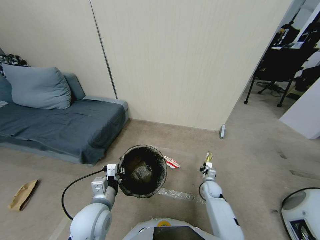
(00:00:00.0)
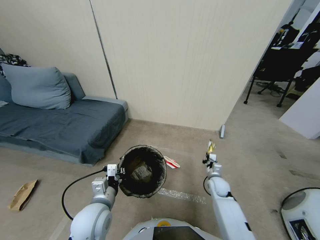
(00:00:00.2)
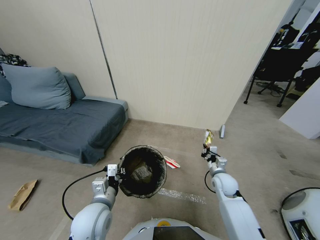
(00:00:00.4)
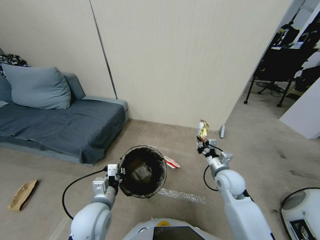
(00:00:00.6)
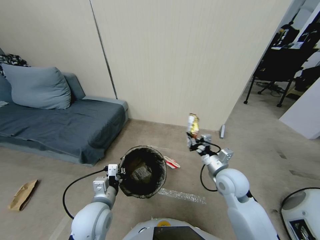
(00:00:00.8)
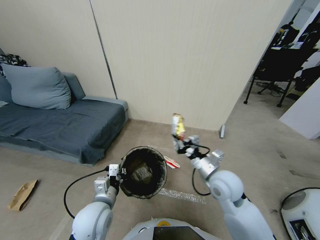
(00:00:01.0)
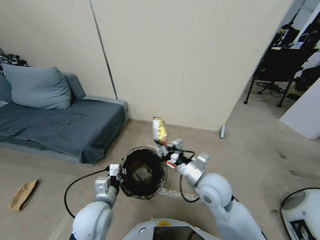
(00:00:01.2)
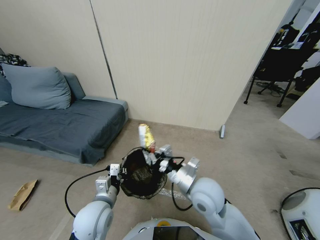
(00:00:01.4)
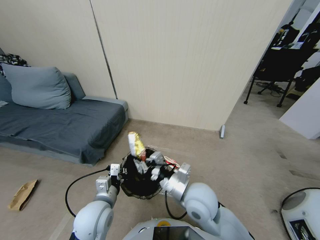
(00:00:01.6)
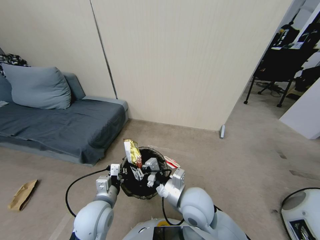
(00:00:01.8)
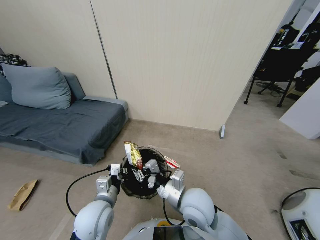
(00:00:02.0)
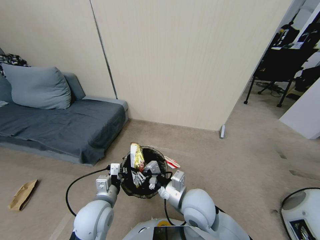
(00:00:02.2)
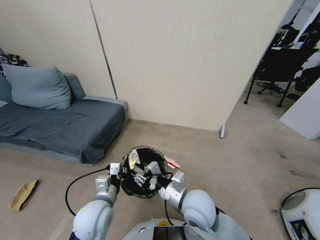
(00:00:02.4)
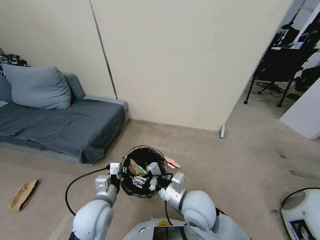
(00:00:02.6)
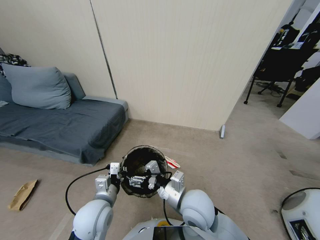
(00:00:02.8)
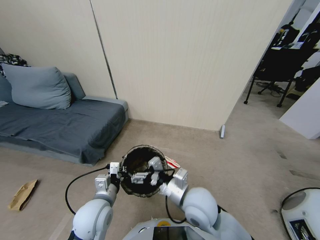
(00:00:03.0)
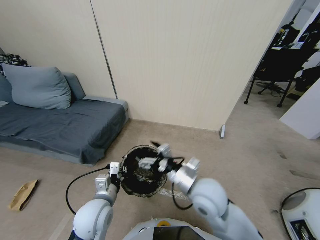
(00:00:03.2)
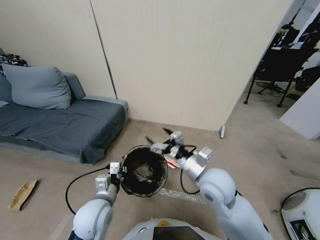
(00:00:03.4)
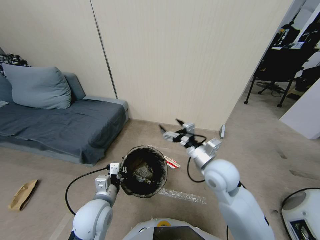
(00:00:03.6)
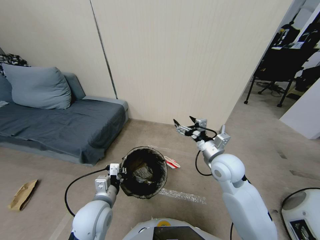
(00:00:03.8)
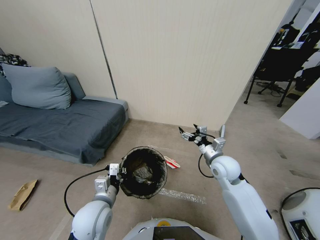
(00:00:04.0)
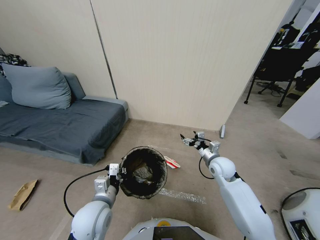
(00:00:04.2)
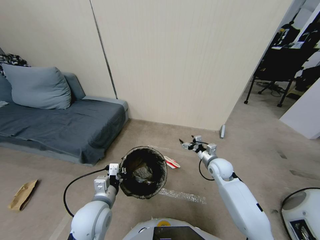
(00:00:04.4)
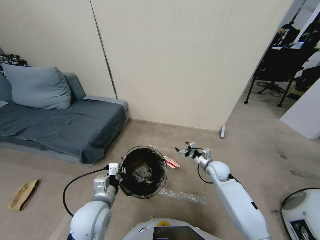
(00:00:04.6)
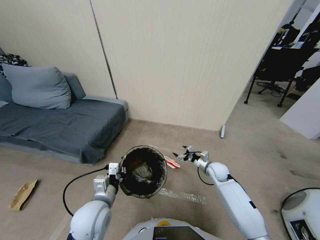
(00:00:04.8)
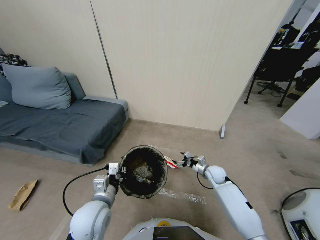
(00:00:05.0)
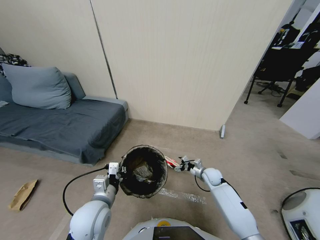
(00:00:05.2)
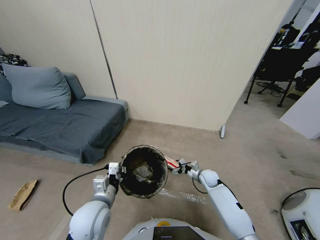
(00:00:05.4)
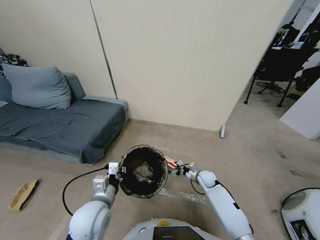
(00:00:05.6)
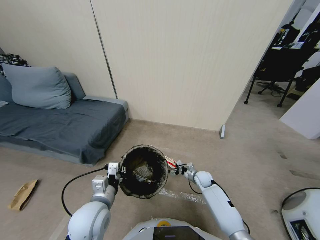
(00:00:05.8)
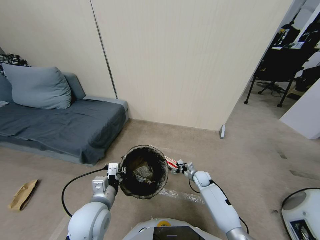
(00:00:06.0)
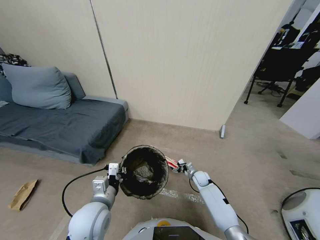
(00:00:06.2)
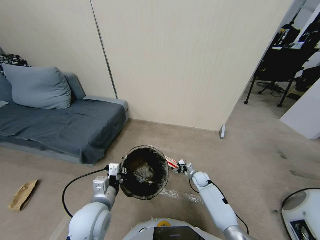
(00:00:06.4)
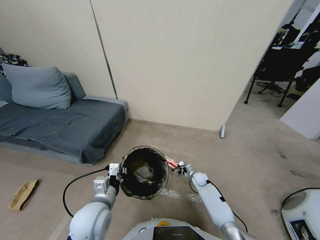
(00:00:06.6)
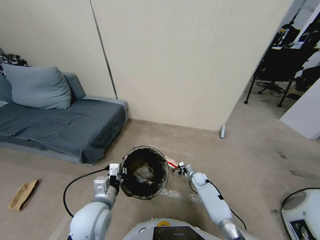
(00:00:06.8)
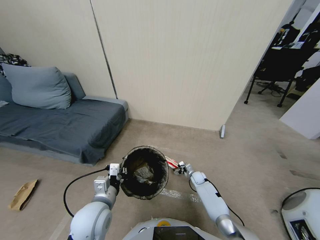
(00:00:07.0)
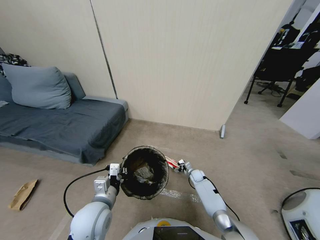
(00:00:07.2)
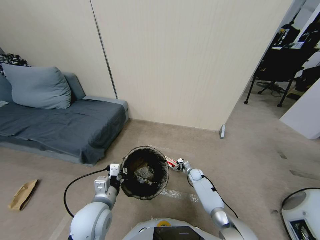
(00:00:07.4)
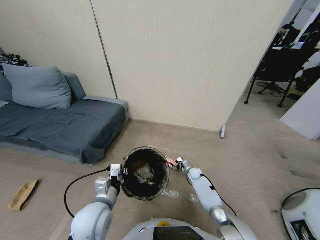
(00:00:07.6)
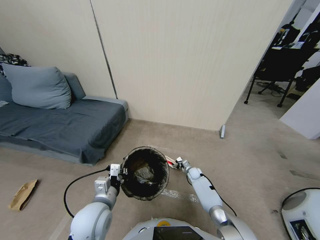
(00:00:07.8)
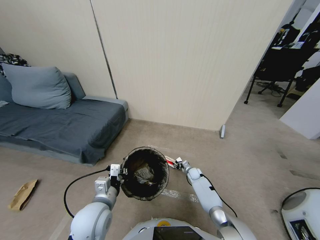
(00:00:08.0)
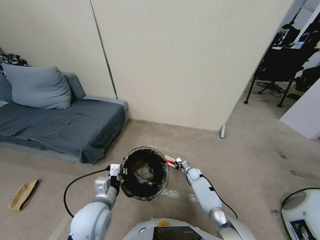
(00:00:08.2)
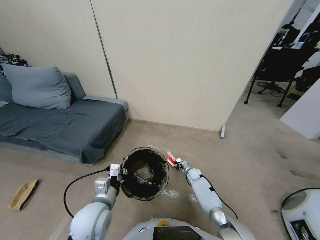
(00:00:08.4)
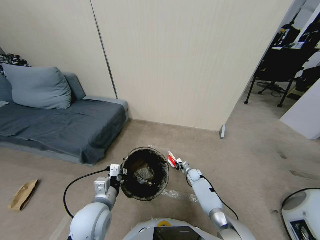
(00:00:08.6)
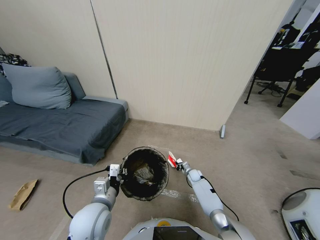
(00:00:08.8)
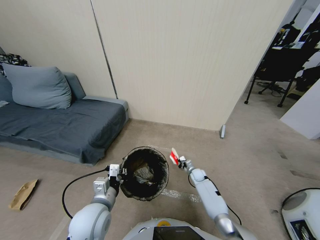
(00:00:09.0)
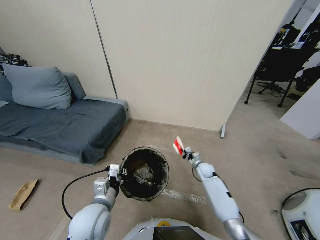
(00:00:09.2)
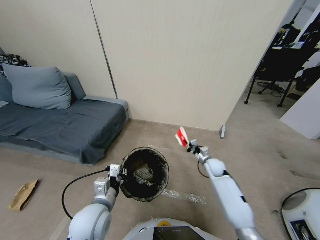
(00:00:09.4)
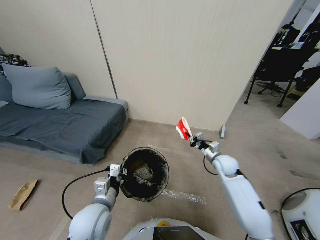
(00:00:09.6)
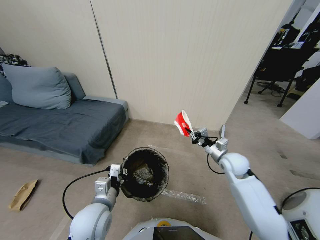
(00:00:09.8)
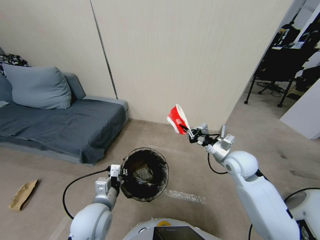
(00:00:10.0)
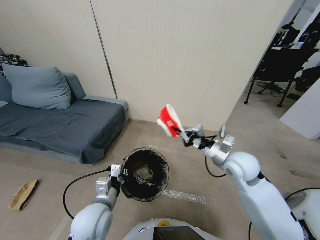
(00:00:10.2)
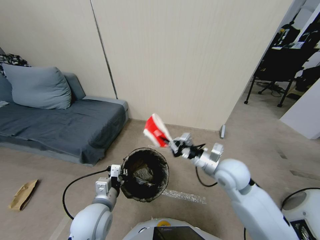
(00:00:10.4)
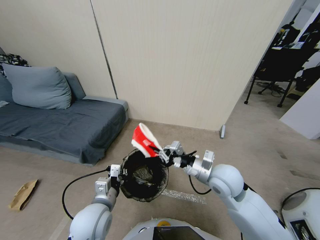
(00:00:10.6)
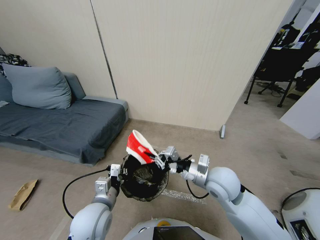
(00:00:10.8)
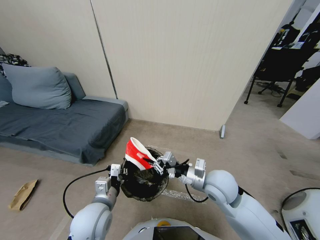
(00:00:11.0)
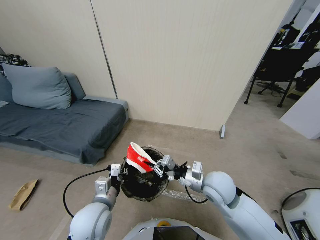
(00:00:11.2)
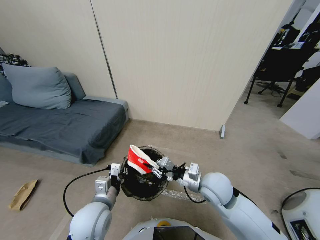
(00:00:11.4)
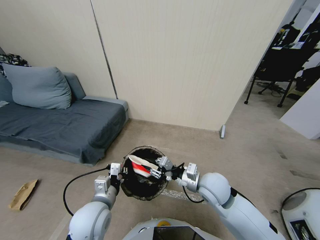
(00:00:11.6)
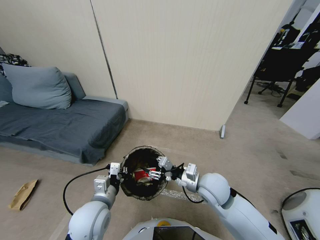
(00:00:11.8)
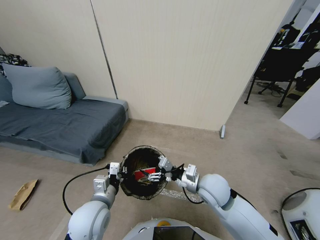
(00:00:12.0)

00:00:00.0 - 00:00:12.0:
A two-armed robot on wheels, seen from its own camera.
Task of the whole recording: Pick up the trash bin, then pick up the garbage from the floor and place it into the trash bin.
00:00:00.0 - 00:00:01.6: The right gripper heads upward, to the left and backward, covering about 40 cm.
00:00:01.6 - 00:00:03.0: The right gripper opens its fingers.
00:00:03.0 - 00:00:04.4: The right gripper goes about 25 cm to the right, forward and downward.
00:00:04.4 - 00:00:06.0: The right gripper travels downward by some 15 cm.
00:00:06.0 - 00:00:07.6: The right gripper goes some 10 cm downward and forward.
00:00:07.6 - 00:00:09.0: The right gripper moves upward, about 10 cm, and closes its fingers.
00:00:09.0 - 00:00:10.4: The right gripper moves upward and backward, about 35 cm.
00:00:10.4 - 00:00:12.0: The right gripper moves some 5 cm, and opens.

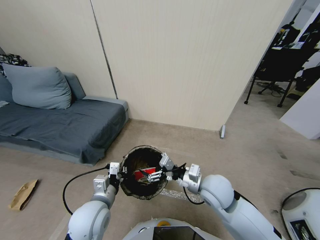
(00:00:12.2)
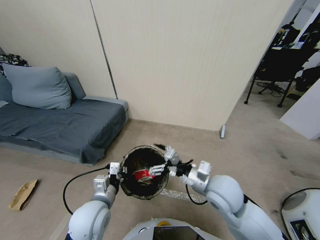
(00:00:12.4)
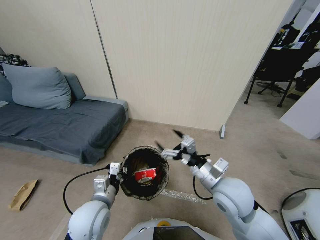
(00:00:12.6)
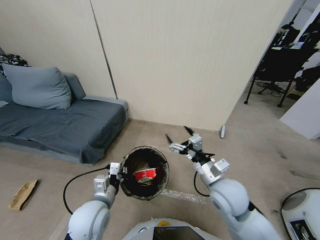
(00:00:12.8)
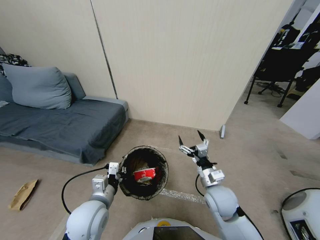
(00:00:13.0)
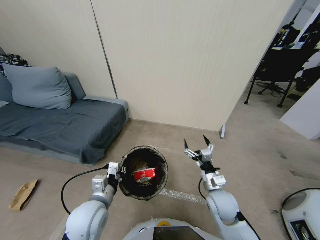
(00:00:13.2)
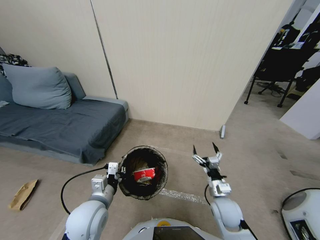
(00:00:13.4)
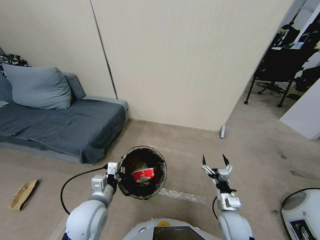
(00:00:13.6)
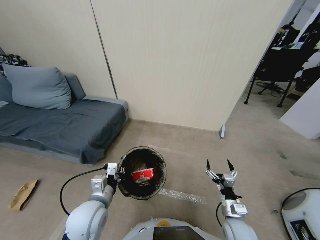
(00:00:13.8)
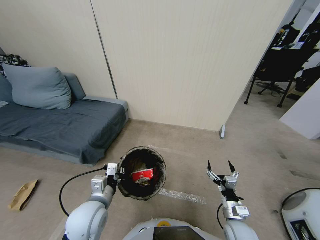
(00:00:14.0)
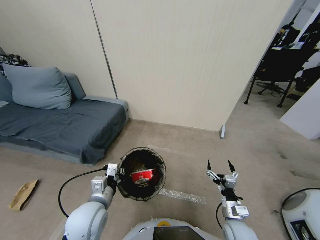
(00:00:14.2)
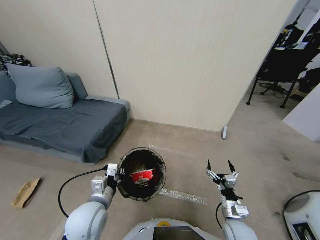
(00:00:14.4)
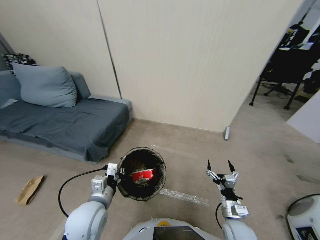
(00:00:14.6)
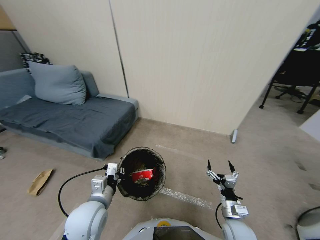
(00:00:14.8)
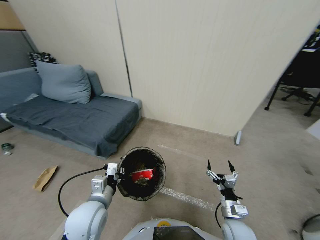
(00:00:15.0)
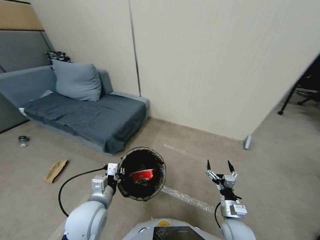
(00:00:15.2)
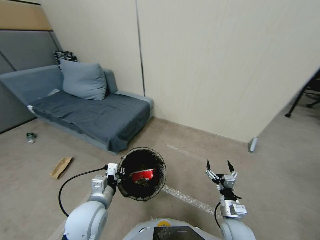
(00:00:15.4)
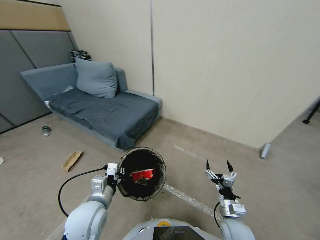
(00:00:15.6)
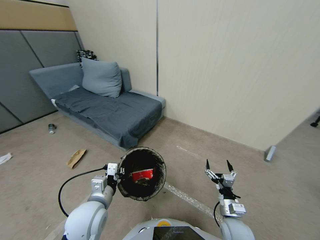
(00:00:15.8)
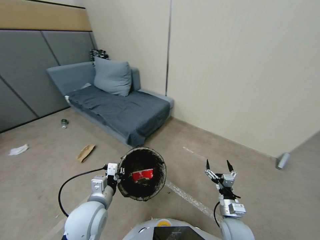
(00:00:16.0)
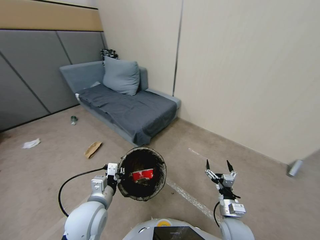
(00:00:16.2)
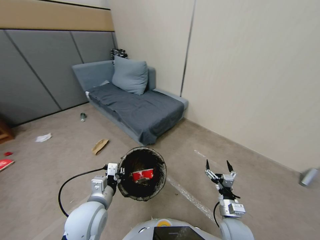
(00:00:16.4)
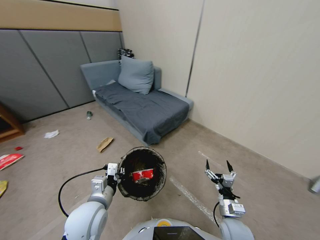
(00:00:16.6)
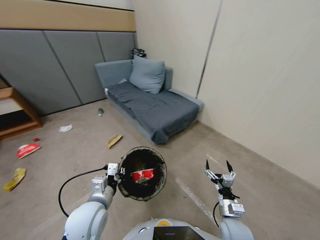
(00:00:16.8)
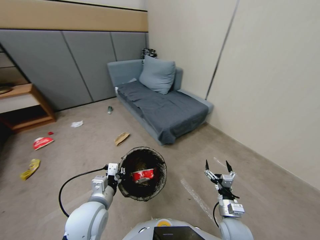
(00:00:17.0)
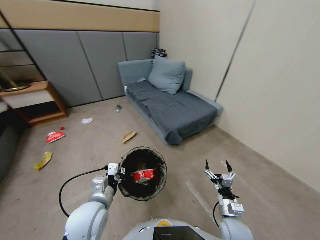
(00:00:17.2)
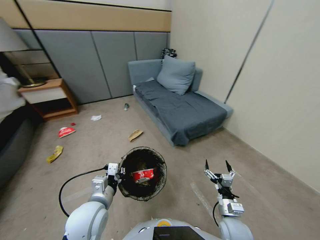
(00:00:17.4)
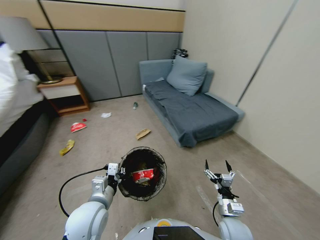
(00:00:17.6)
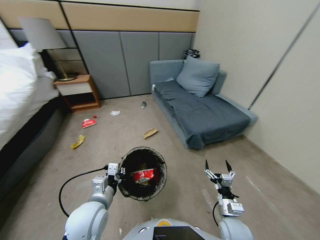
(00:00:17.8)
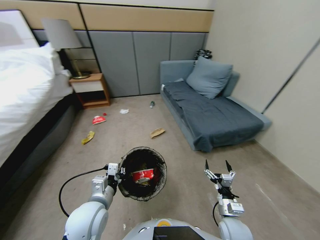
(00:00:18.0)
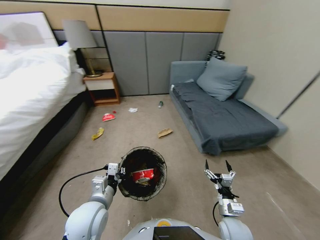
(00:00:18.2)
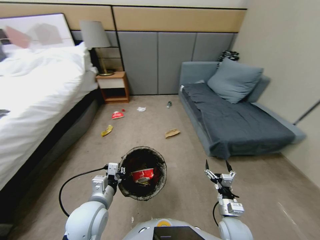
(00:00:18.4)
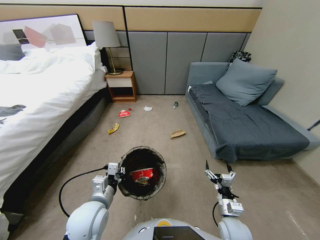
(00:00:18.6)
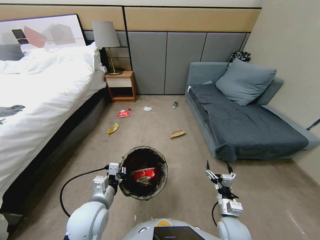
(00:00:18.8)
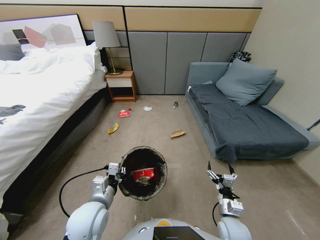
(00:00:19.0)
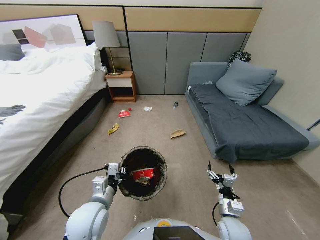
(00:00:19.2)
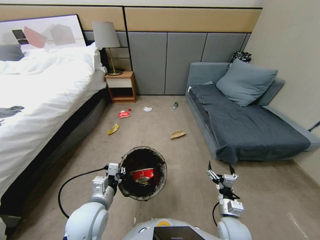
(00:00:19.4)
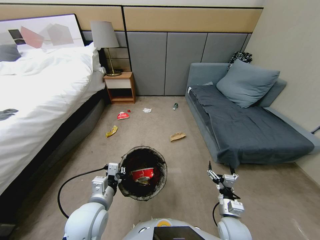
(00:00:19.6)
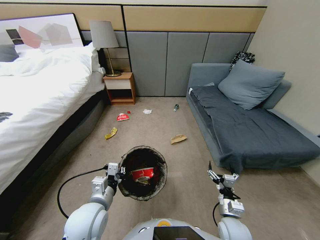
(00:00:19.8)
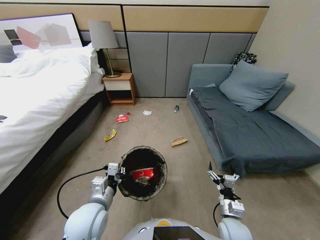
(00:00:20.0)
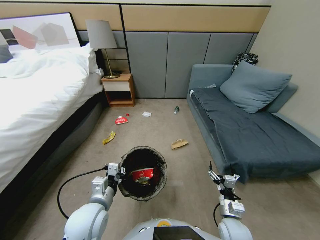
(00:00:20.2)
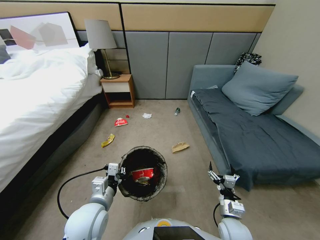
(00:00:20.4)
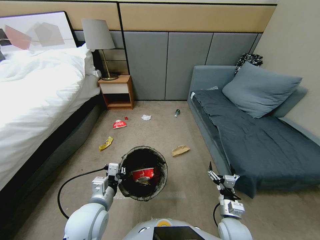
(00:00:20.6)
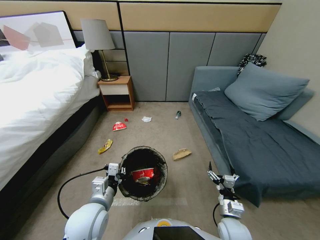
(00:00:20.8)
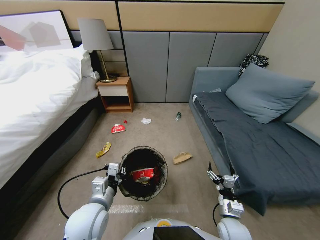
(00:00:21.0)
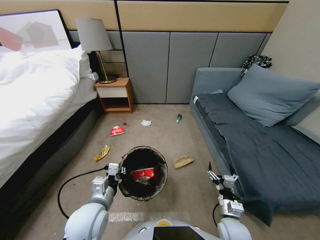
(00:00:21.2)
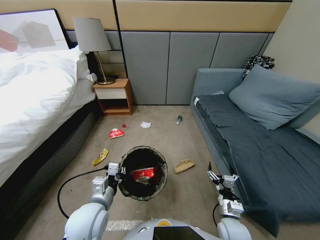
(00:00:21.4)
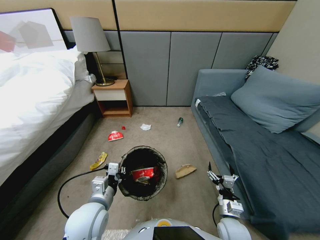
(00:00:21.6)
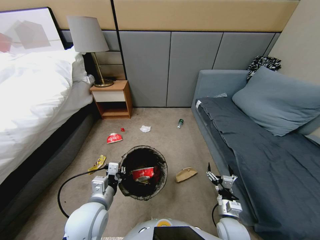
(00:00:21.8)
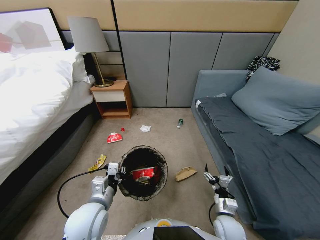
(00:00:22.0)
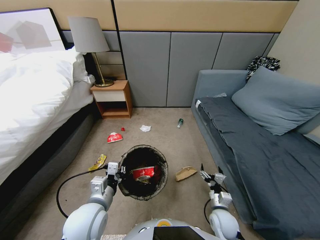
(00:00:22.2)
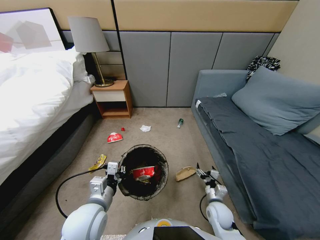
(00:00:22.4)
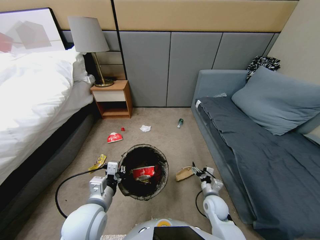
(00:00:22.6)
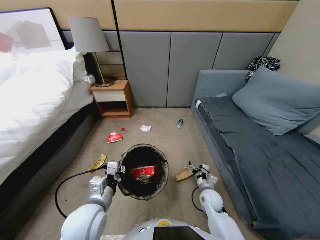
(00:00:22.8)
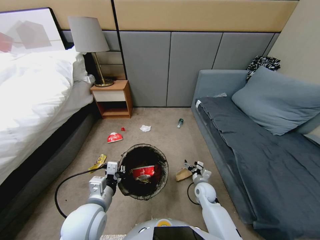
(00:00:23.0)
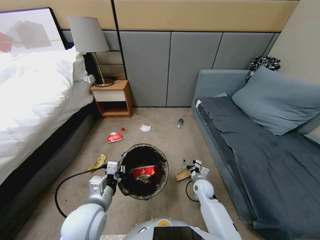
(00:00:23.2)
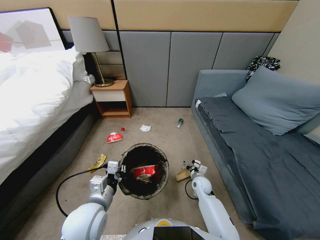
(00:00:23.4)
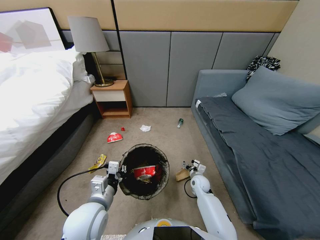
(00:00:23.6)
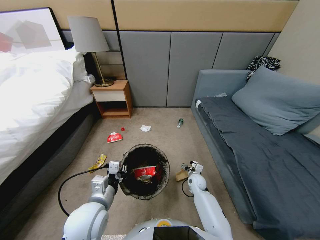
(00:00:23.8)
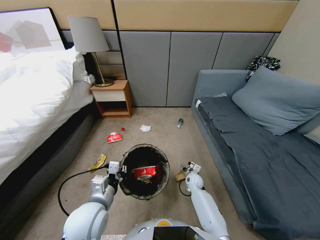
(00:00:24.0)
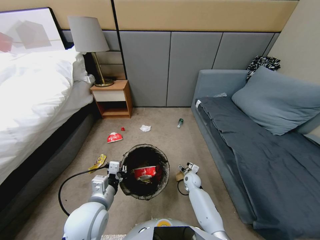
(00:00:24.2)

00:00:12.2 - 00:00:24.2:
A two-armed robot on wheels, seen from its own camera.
Task of the whole recording: Pick up the trash bin, then pick up the garbage from the floor and place it into the trash bin.
00:00:12.2 - 00:00:13.8: The right gripper moves downward, to the right and backward, about 25 cm.
00:00:21.2 - 00:00:22.6: The right gripper travels forward by some 10 cm.
00:00:22.6 - 00:00:24.2: The right gripper shifts some 15 cm forward and downward.
